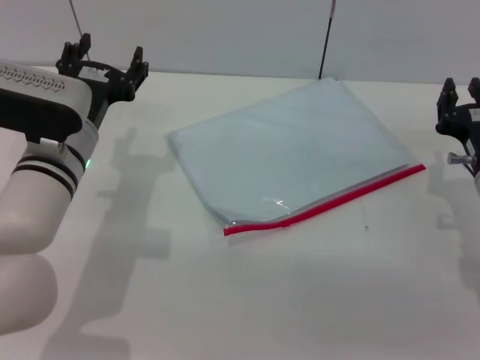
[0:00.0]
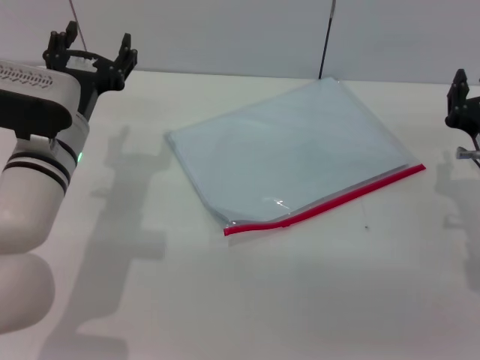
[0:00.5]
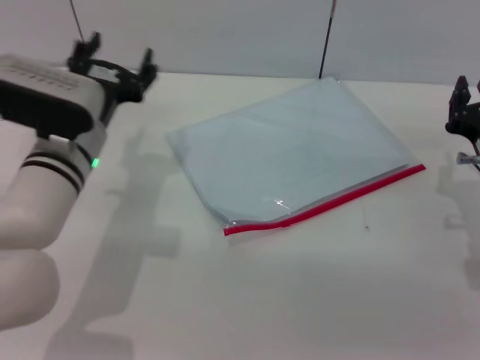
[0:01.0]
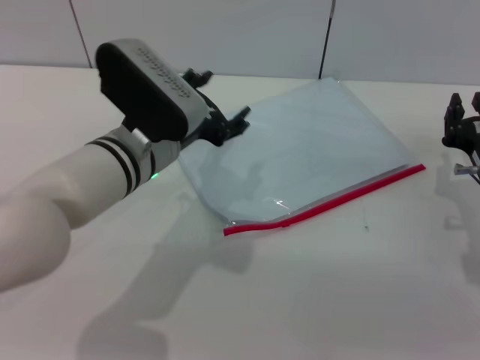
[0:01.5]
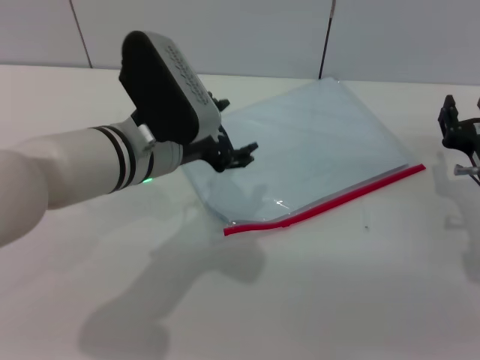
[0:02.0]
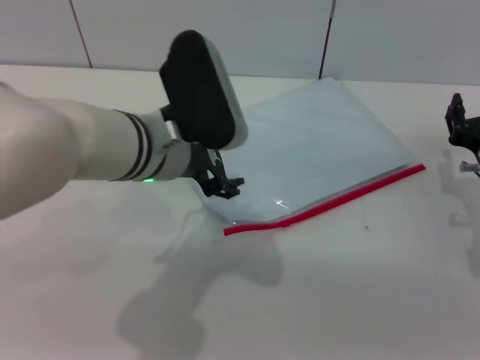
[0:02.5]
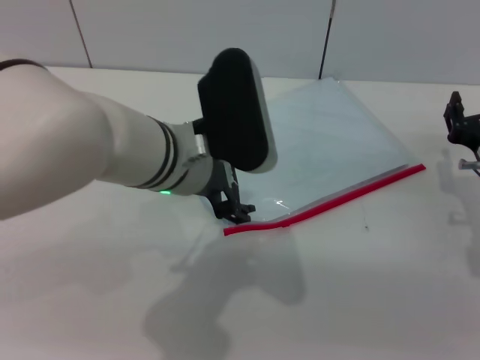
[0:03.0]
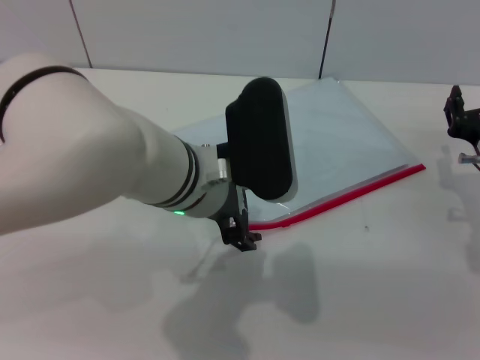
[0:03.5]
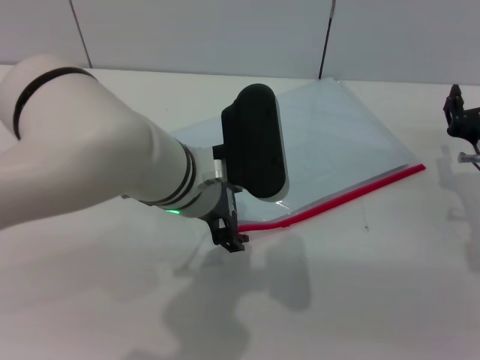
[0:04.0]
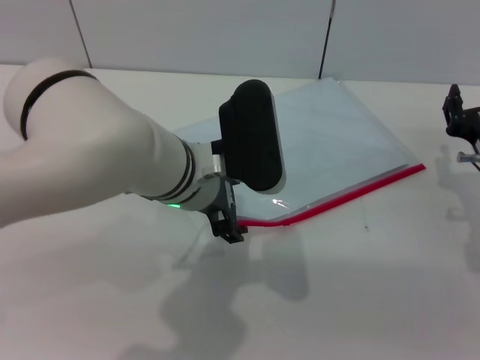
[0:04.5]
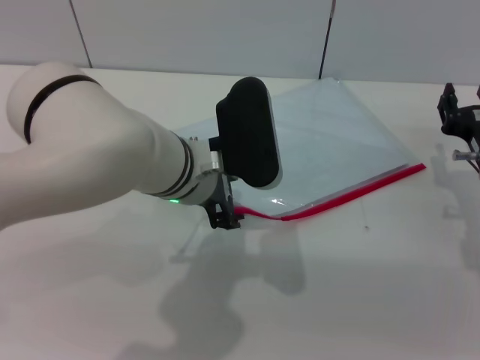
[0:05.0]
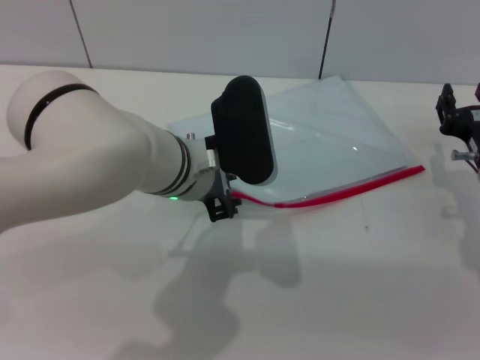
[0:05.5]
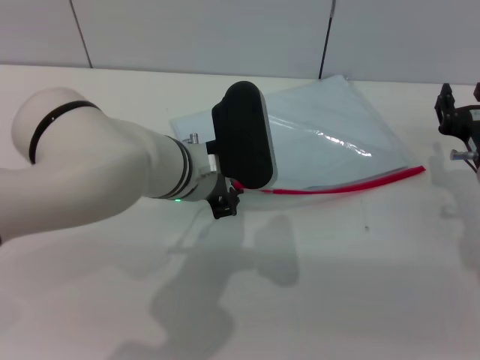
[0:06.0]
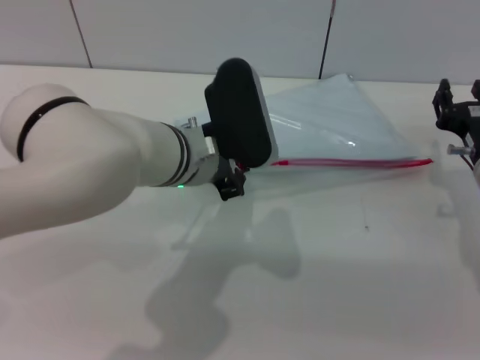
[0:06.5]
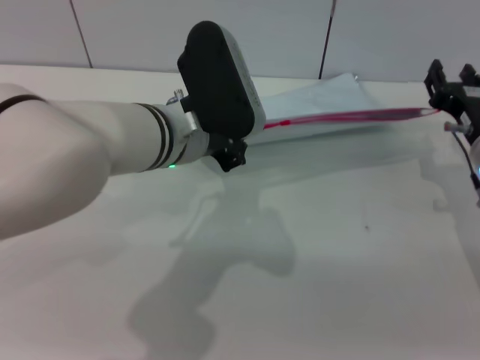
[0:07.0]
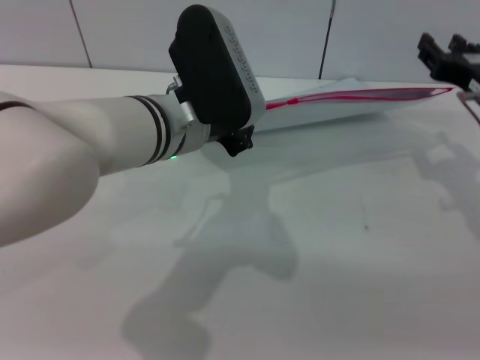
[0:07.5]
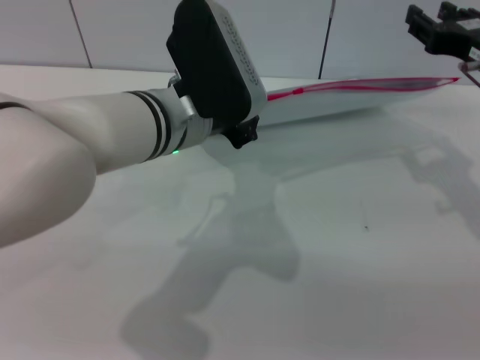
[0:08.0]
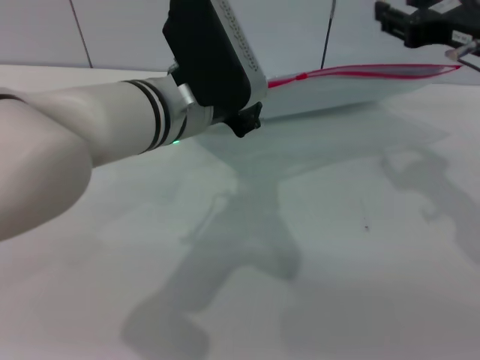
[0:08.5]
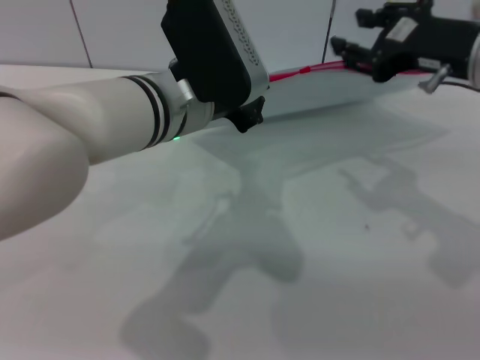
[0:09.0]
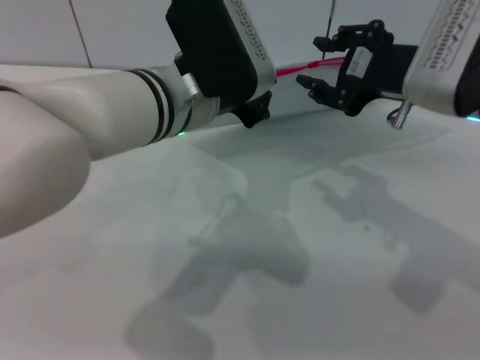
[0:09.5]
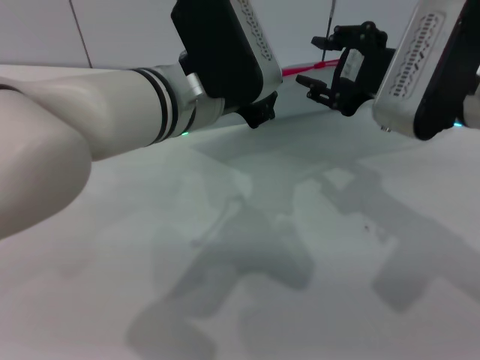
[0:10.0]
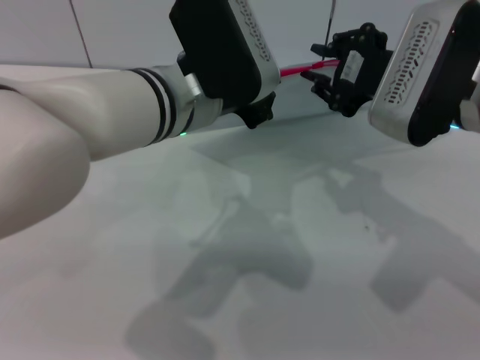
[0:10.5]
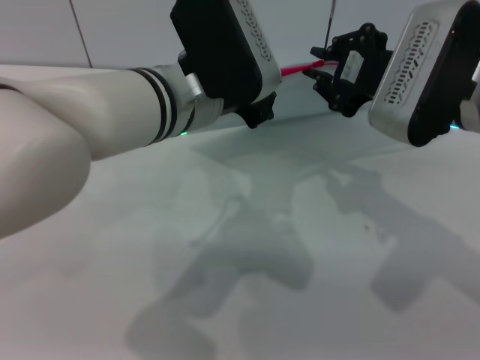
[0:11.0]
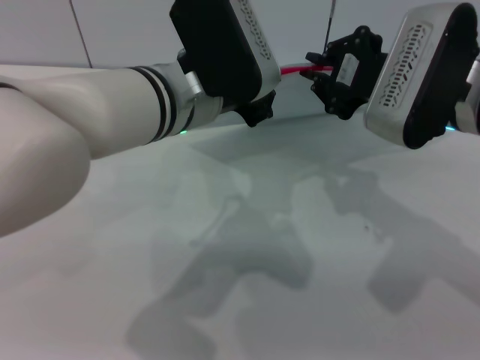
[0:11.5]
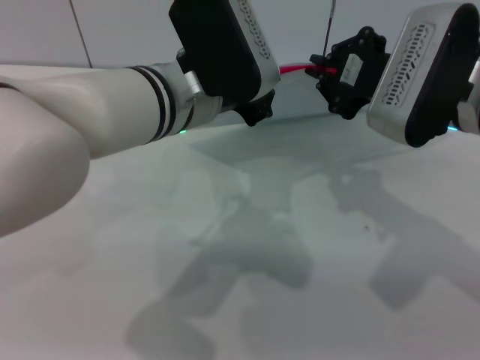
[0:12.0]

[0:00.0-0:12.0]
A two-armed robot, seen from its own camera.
Step, 0:00.0 to 0:08.5: Pick up the transparent plastic bag with the left gripper.
0:00.0 to 0:02.0: The left gripper goes some 5 cm to the right.
0:02.0 to 0:04.0: The left gripper travels to the right by approximately 5 cm.
0:04.0 to 0:06.0: The left gripper closes.
0:06.0 to 0:08.0: The left gripper is displaced upward by approximately 5 cm; the right gripper is displaced upward by about 15 cm.
0:08.0 to 0:10.0: The right gripper moves to the left, roughly 5 cm.
0:10.0 to 0:12.0: The right gripper closes its fingers.

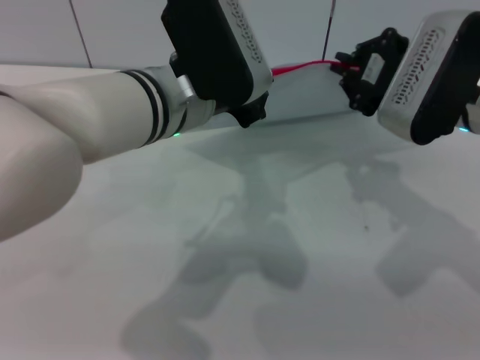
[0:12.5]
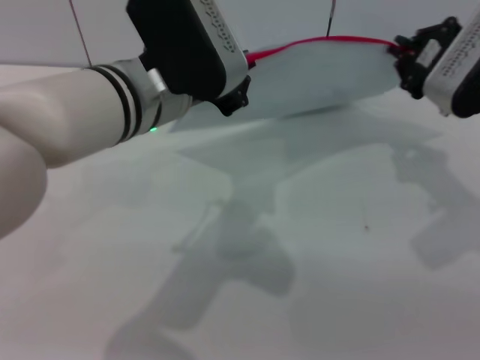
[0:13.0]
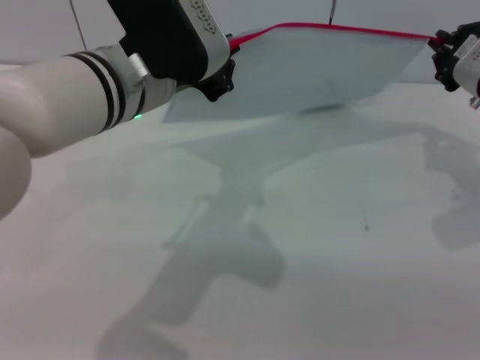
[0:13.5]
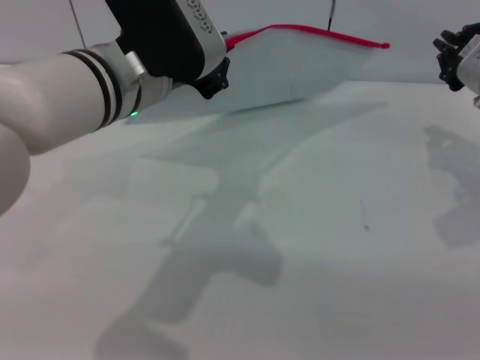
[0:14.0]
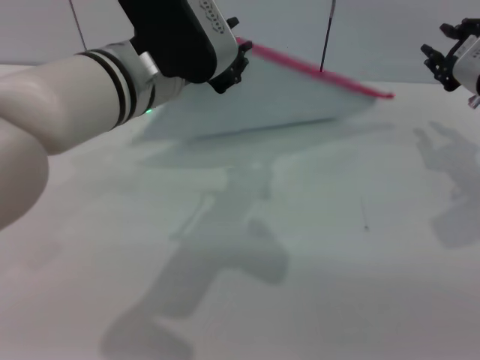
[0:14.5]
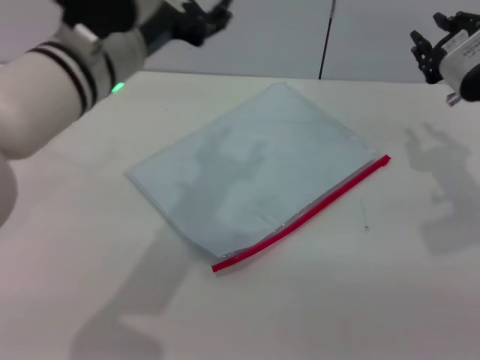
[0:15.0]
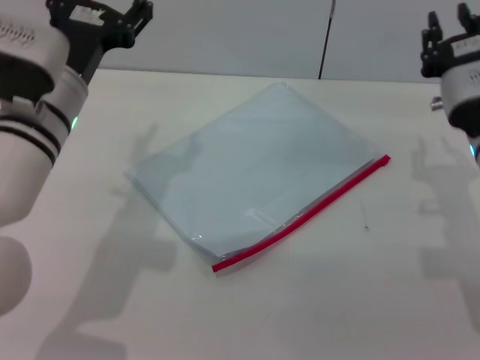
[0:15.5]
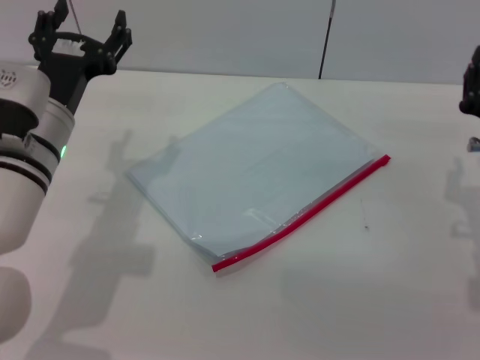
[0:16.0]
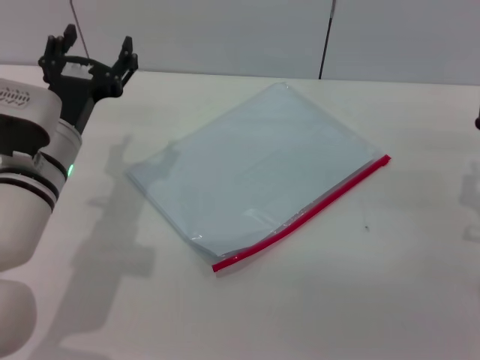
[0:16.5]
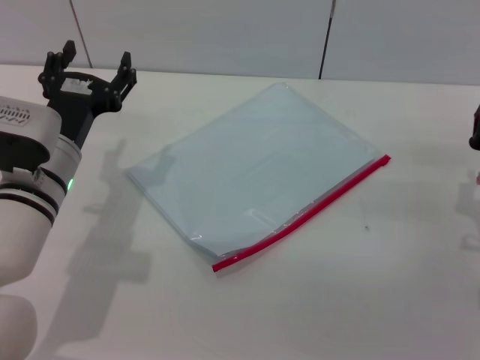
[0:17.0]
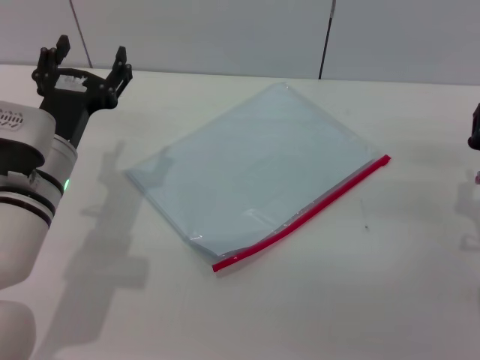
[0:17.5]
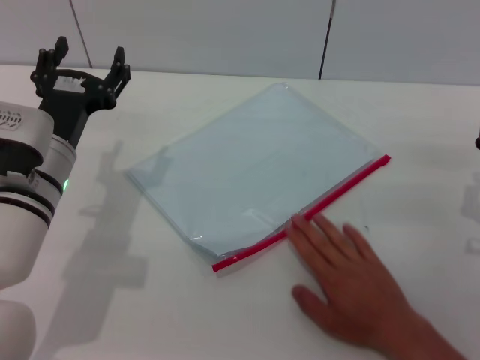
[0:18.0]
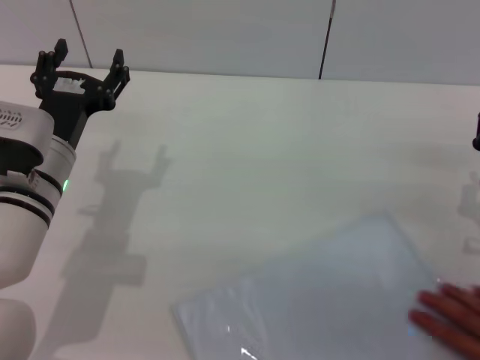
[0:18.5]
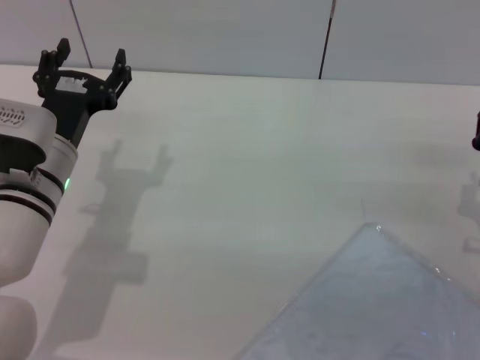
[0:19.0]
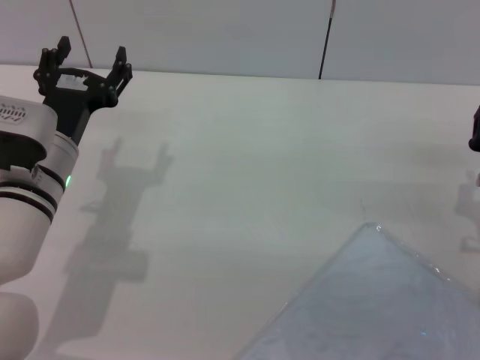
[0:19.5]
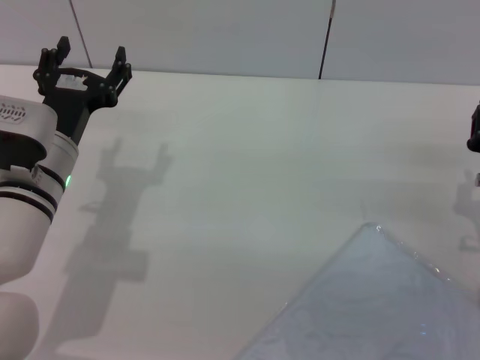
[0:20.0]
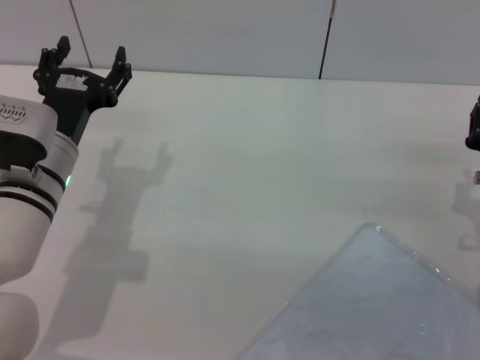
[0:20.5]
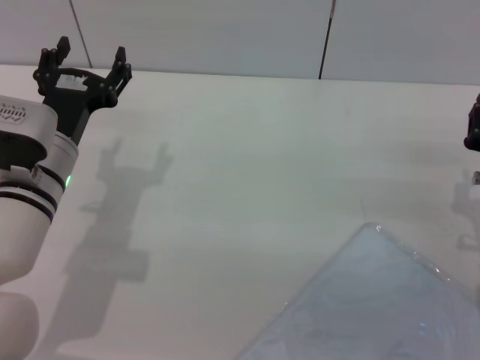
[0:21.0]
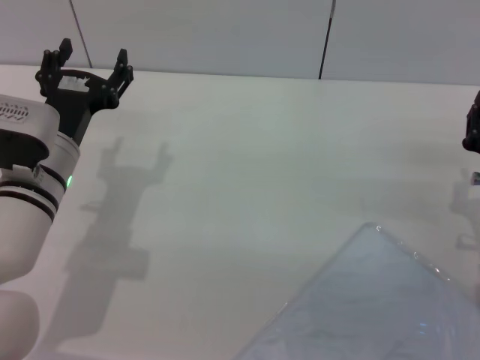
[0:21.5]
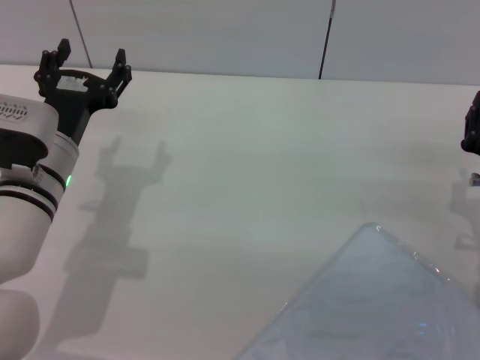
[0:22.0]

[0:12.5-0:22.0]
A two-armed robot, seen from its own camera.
Step, 0:14.0 to 0:15.0: Place the transparent plastic bag.
0:12.5 to 0:14.5: The right gripper is displaced to the right by roughly 5 cm, and opens up.
0:14.5 to 0:16.5: The right gripper heads downward and backward, covering some 15 cm. The left gripper travels downward and to the left by approximately 15 cm, and opens.
0:16.5 to 0:18.0: The grippers make only small movements.
0:18.0 to 0:22.0: Both grippers stay about where they are.

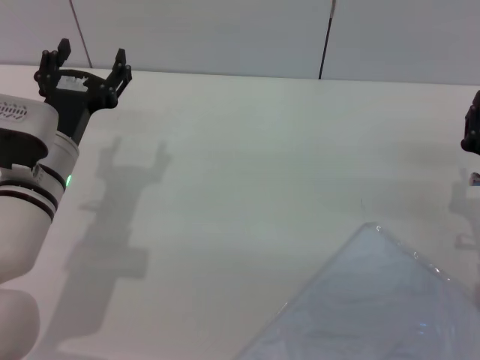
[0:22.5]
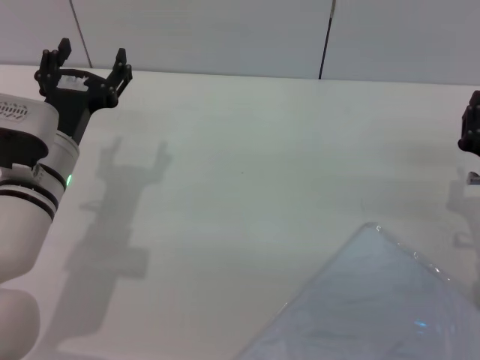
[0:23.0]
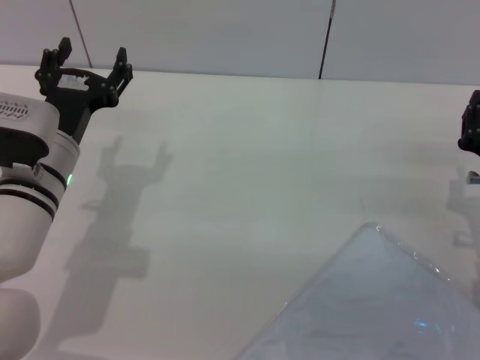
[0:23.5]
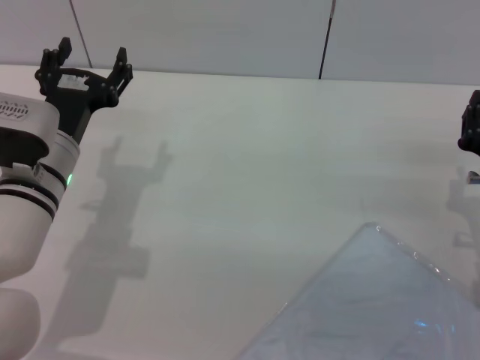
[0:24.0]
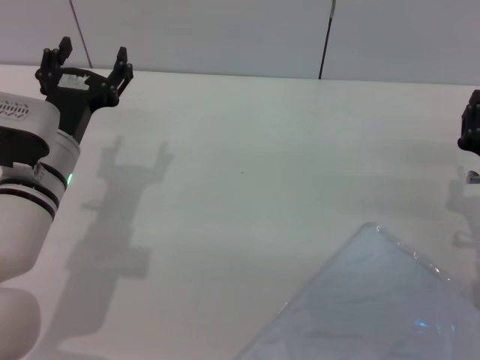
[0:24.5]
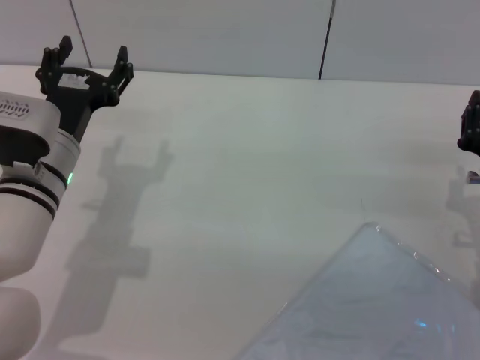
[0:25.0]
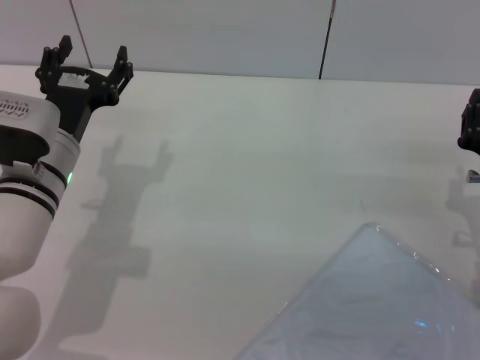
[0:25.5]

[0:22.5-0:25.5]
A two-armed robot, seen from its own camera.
0:22.5 to 0:25.5: Neither gripper changes place.
